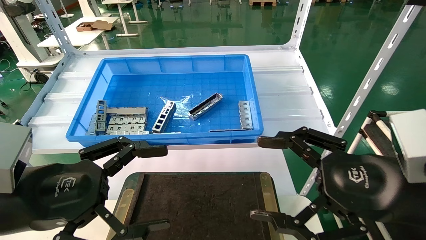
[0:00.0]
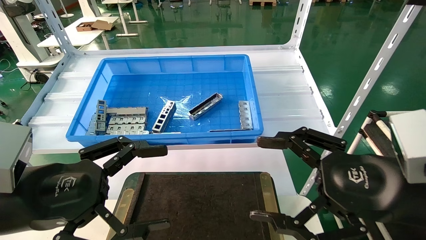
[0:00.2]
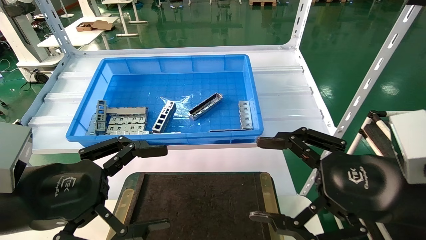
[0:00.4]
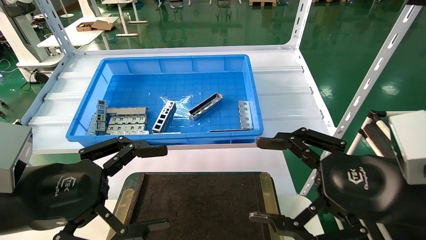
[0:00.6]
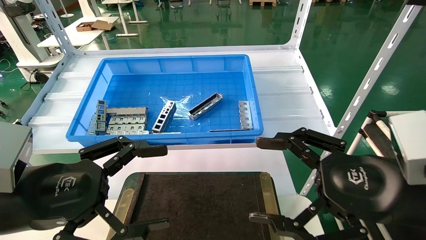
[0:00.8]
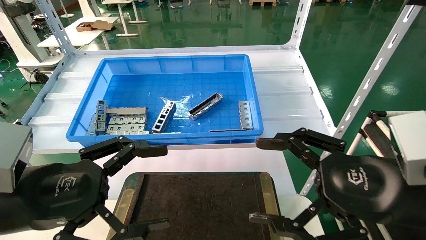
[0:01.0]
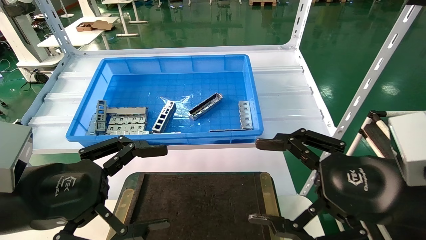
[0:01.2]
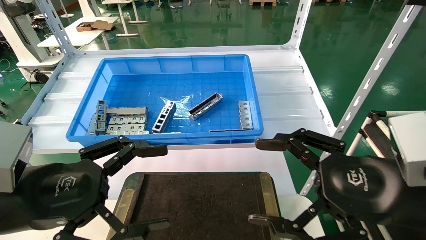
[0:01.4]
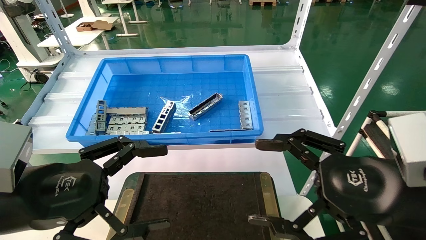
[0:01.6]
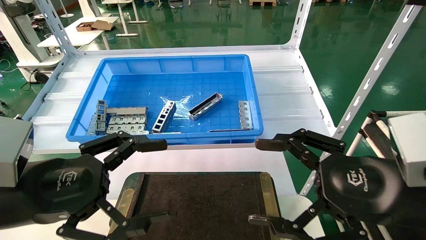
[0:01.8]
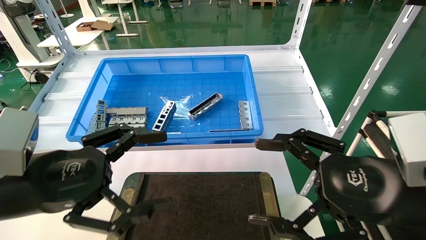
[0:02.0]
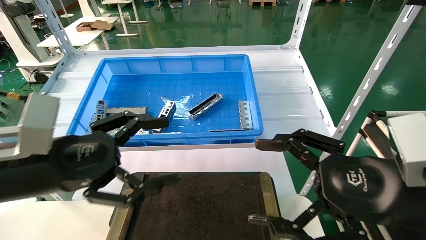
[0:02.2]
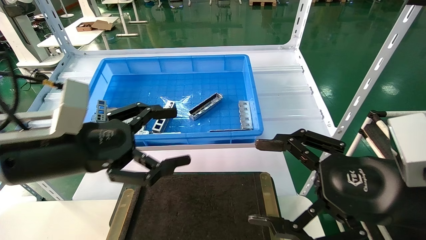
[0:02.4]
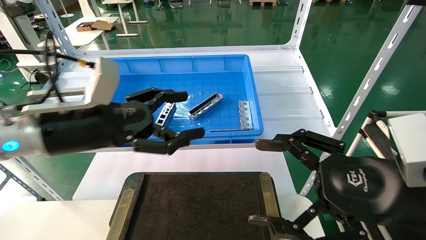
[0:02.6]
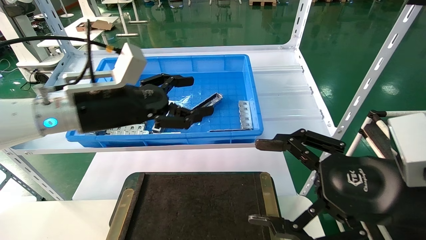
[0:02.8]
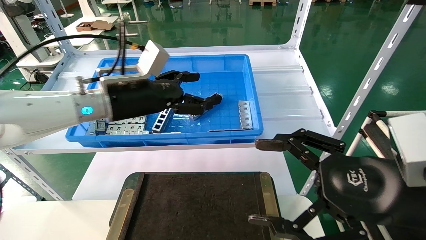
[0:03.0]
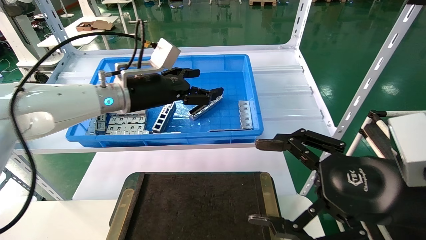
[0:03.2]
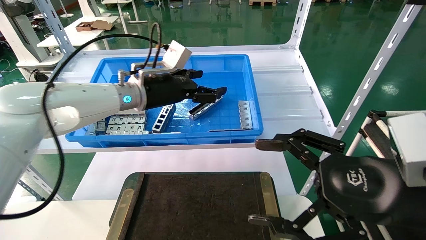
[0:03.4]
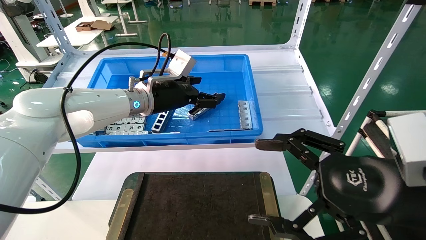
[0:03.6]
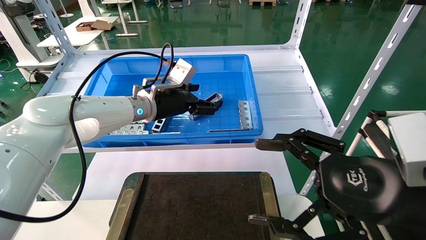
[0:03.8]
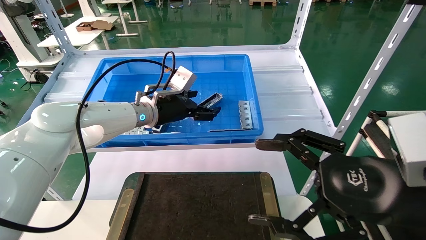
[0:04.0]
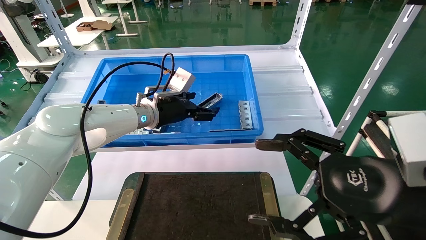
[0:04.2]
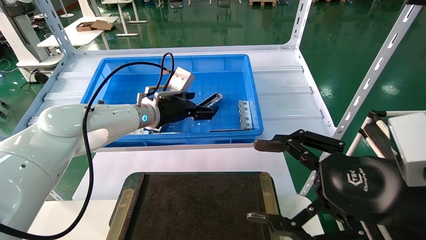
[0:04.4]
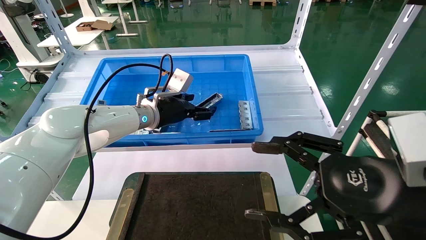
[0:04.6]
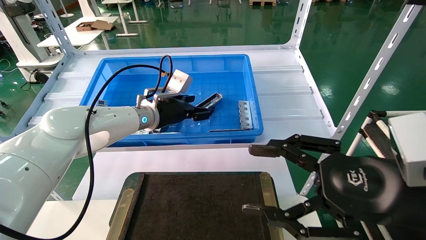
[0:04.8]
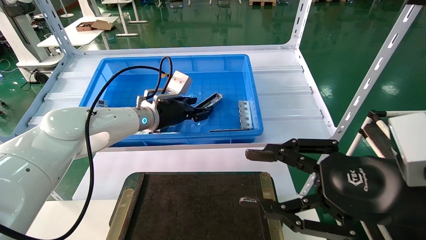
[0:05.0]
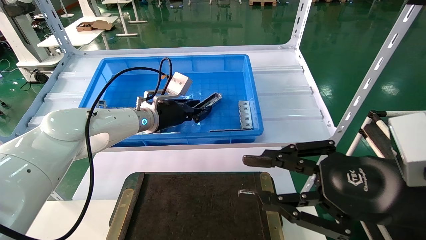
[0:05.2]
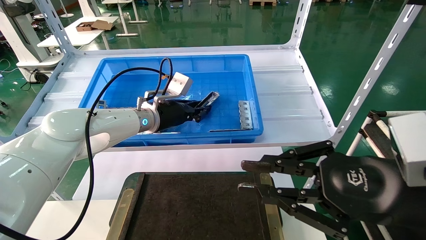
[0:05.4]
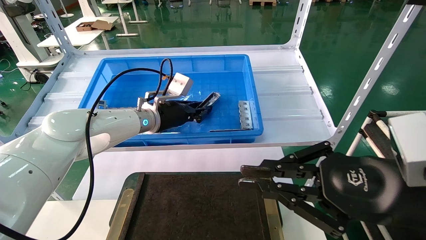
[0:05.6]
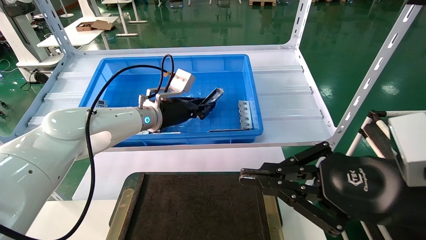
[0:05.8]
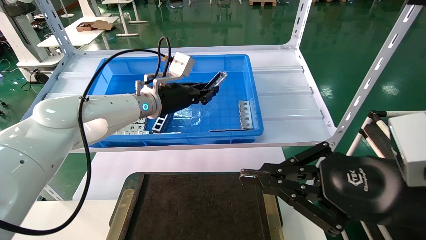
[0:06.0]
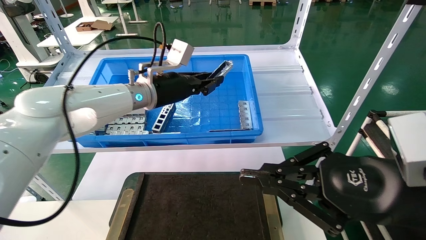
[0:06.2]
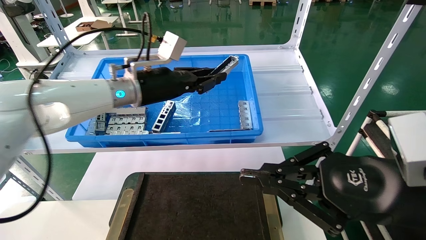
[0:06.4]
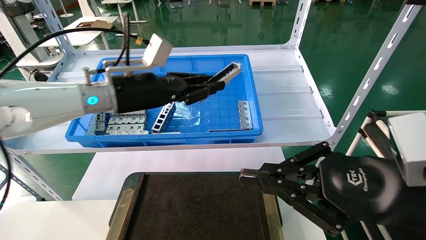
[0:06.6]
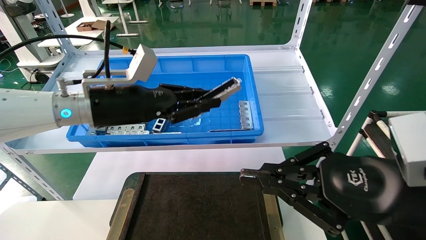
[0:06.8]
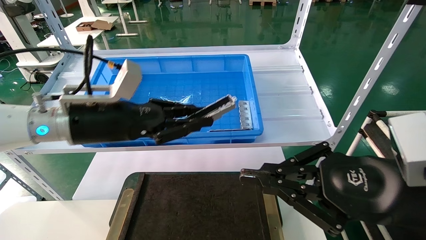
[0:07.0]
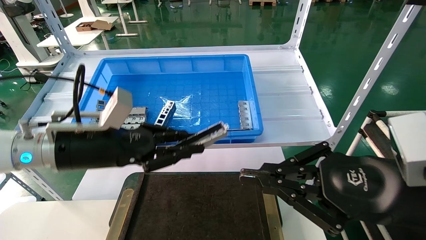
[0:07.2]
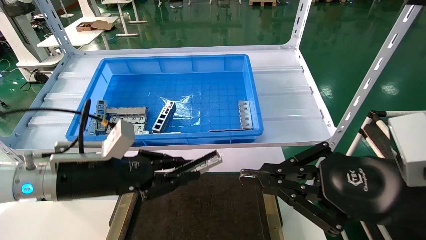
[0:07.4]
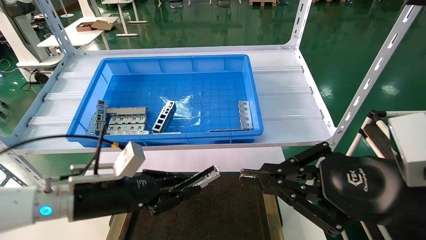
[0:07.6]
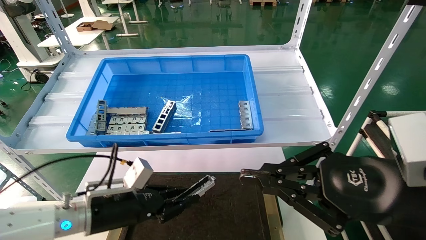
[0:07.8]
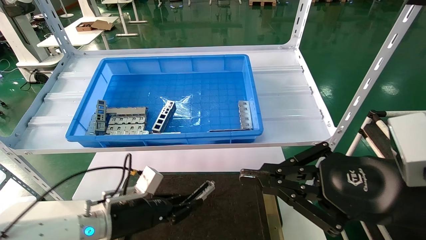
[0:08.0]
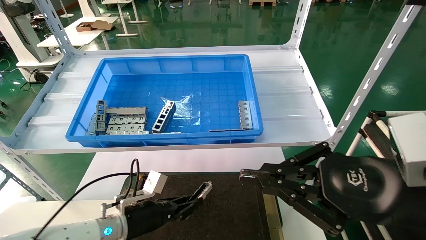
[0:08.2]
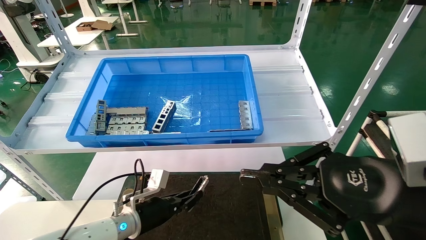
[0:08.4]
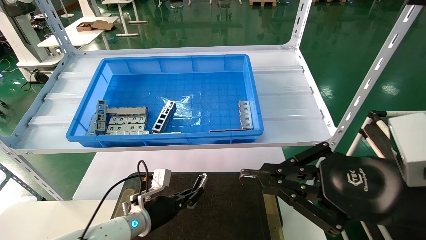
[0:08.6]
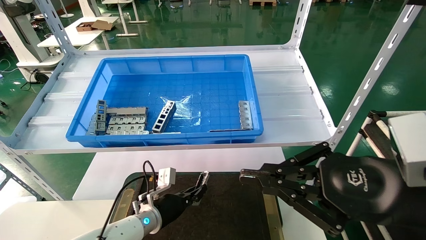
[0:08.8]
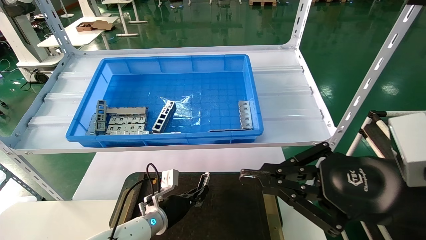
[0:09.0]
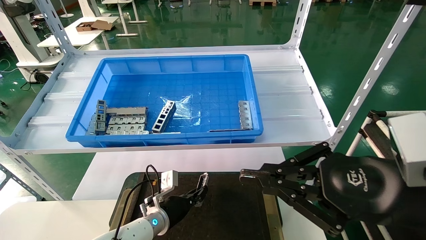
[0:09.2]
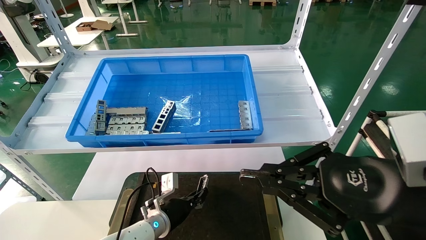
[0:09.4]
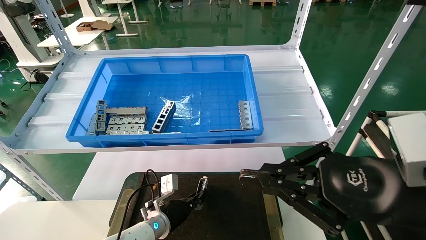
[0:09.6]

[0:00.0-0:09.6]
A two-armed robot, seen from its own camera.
Task of the whole recording: Grasp the part with one hand and place it on the black container.
Step, 0:02.2 to 0:06.0: Pick up the front USB bracket from the feeding area.
0:00.0 to 0:01.6: Both grippers stay put.
0:01.6 to 0:03.2: The left gripper is displaced forward and to the right by approximately 25 cm.
0:03.2 to 0:04.8: The left gripper shifts some 10 cm forward and downward.
0:04.8 to 0:06.4: The left gripper is displaced upward and backward by approximately 10 cm, and closes up; the right gripper closes up.
0:06.4 to 0:08.0: The left gripper shifts about 25 cm downward.
0:08.0 to 0:09.6: The left gripper moves downward, forward and to the right, about 15 cm.

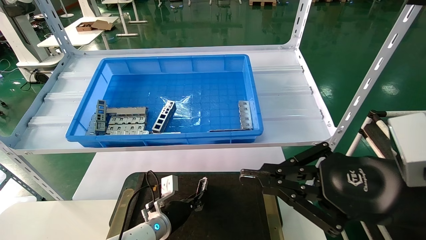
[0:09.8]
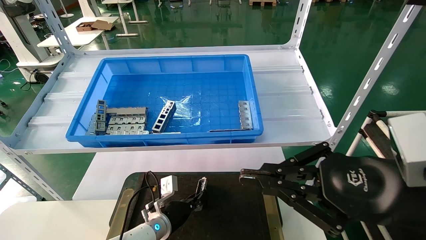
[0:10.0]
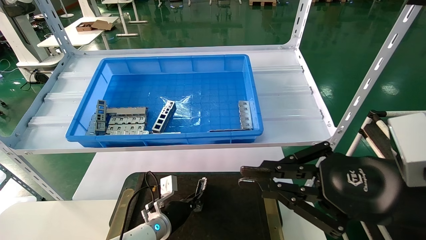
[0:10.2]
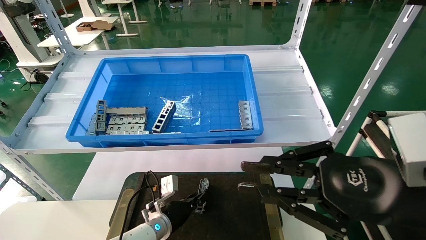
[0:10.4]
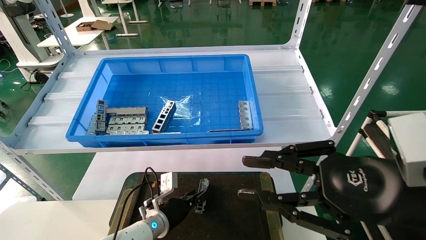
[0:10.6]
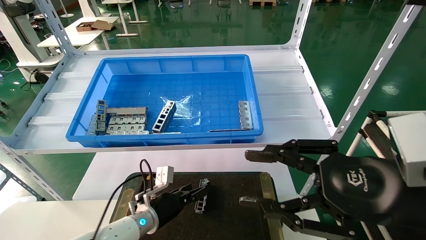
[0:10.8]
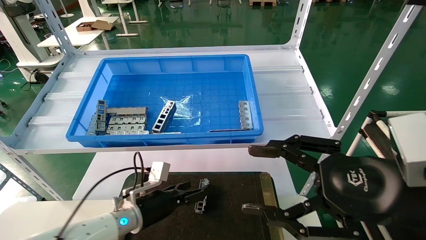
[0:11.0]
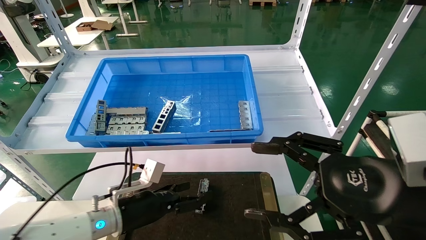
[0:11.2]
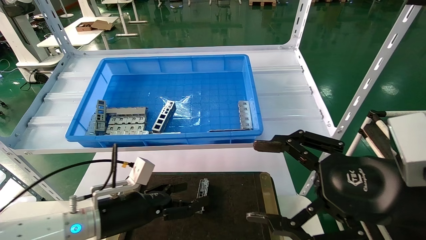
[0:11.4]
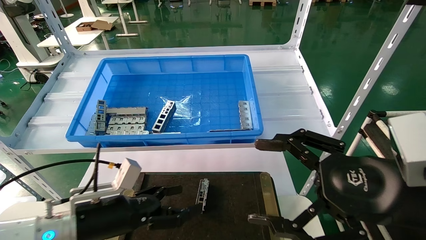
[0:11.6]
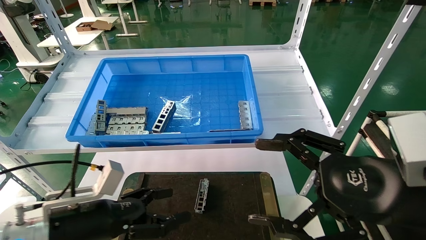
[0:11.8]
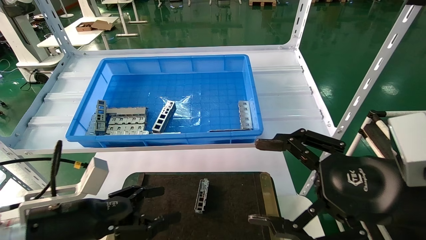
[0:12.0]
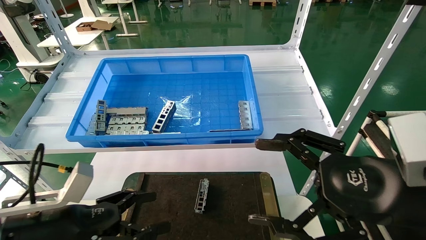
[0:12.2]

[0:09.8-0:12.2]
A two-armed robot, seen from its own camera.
Task of the whole recording: Grasp the part with one hand and place it on the black container.
0:09.8 to 0:11.0: The right gripper opens. Meanwhile the left gripper heads upward, covering approximately 10 cm, and opens its fingers.
0:11.0 to 0:12.2: The right gripper opens its fingers, while the left gripper shifts approximately 20 cm backward, to the left and upward.
